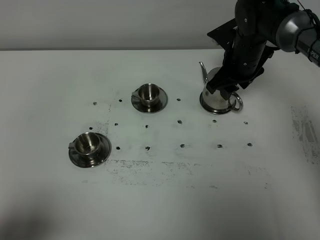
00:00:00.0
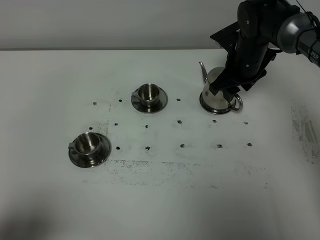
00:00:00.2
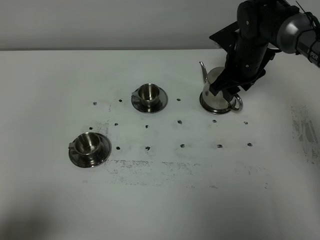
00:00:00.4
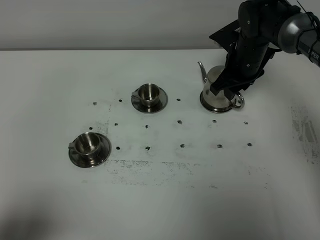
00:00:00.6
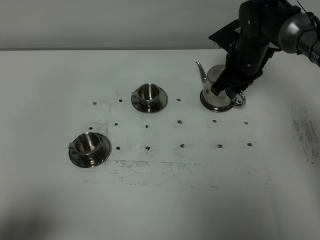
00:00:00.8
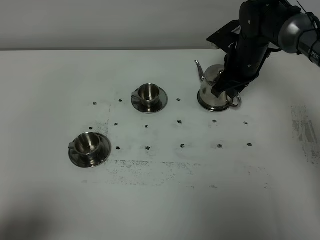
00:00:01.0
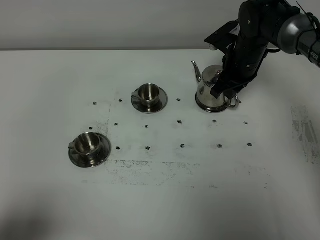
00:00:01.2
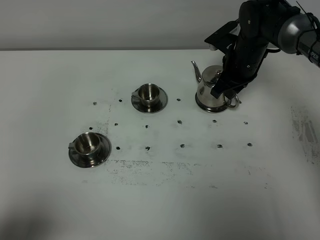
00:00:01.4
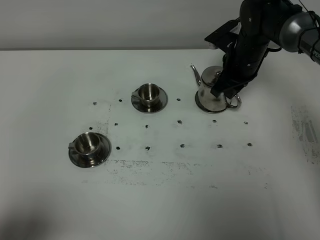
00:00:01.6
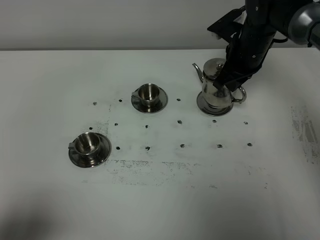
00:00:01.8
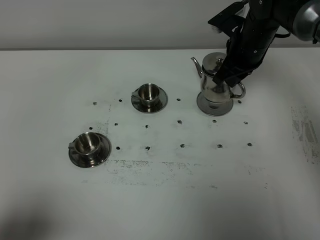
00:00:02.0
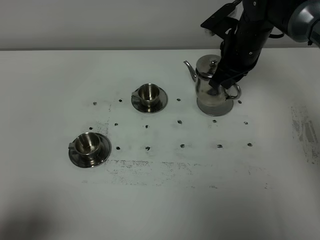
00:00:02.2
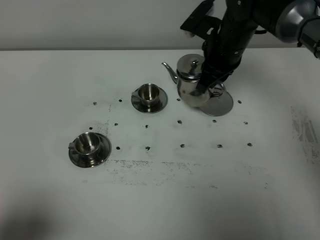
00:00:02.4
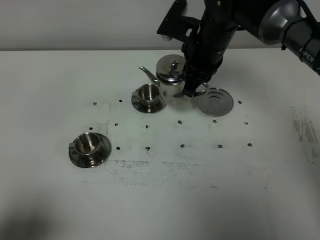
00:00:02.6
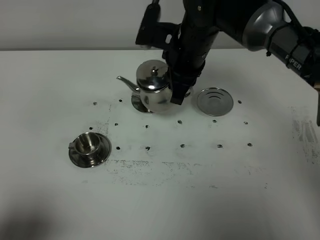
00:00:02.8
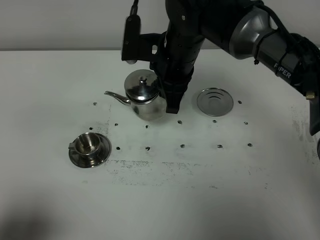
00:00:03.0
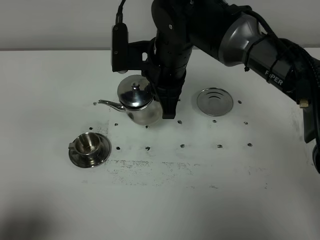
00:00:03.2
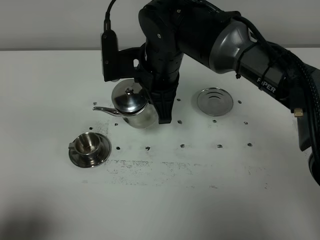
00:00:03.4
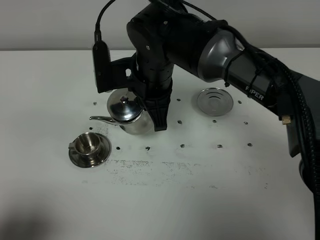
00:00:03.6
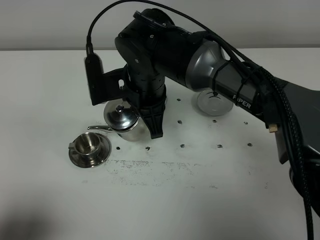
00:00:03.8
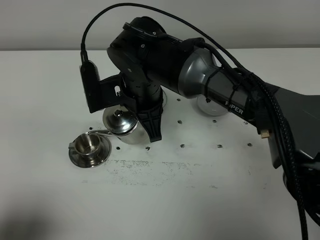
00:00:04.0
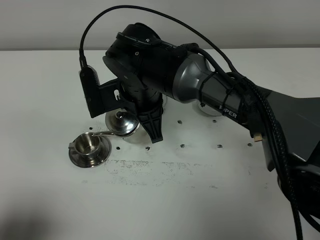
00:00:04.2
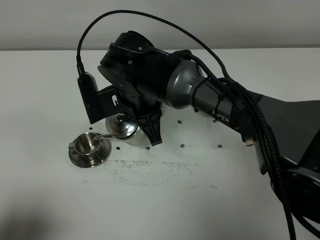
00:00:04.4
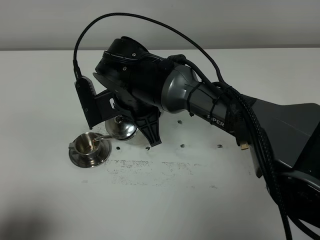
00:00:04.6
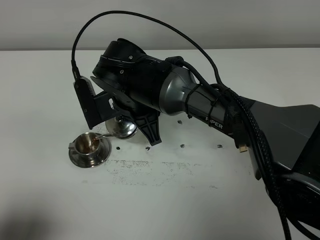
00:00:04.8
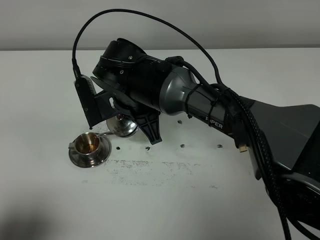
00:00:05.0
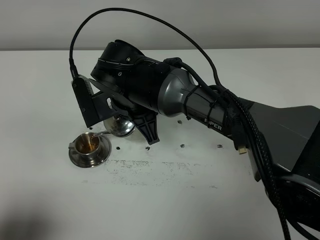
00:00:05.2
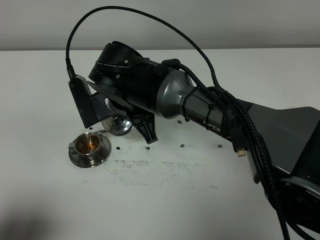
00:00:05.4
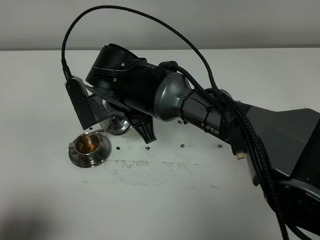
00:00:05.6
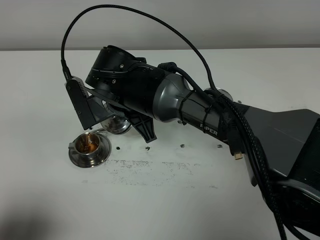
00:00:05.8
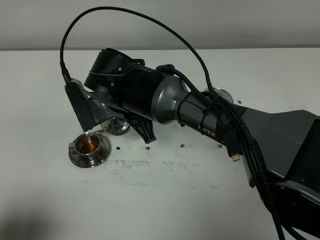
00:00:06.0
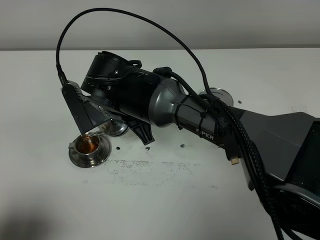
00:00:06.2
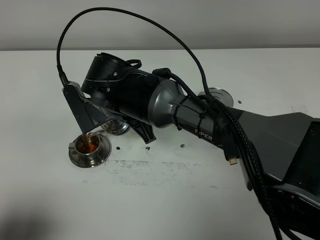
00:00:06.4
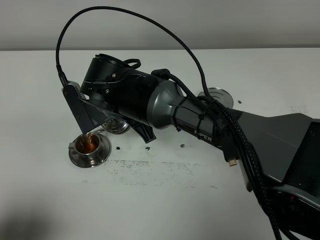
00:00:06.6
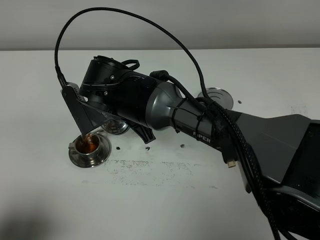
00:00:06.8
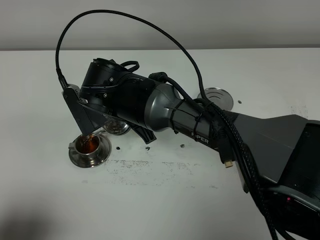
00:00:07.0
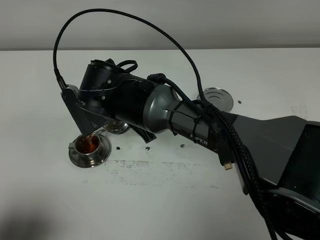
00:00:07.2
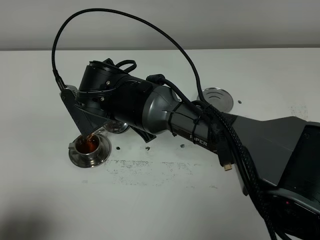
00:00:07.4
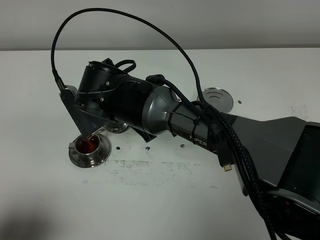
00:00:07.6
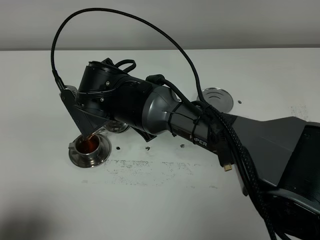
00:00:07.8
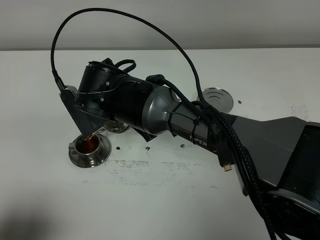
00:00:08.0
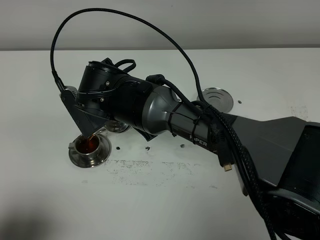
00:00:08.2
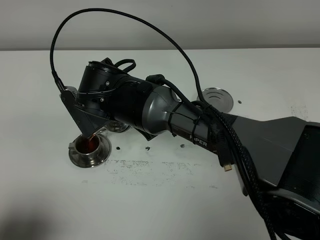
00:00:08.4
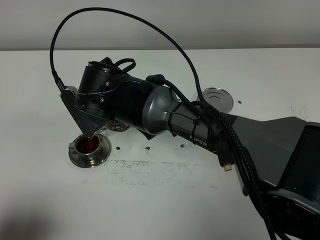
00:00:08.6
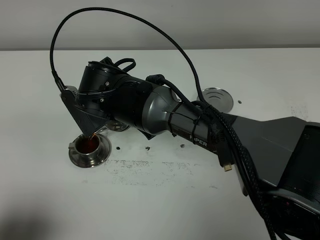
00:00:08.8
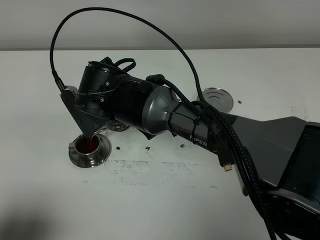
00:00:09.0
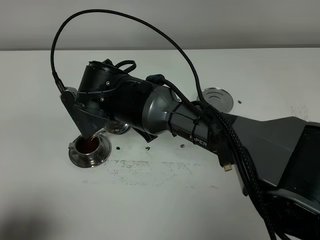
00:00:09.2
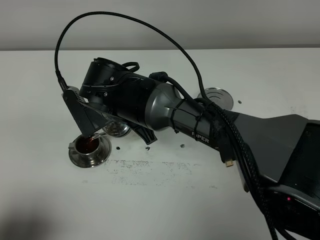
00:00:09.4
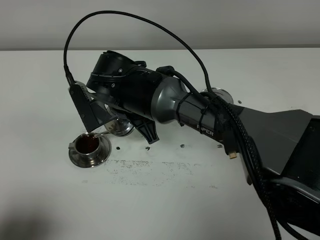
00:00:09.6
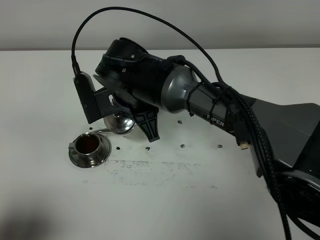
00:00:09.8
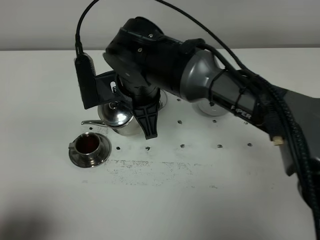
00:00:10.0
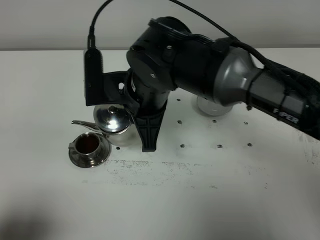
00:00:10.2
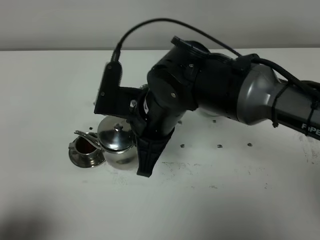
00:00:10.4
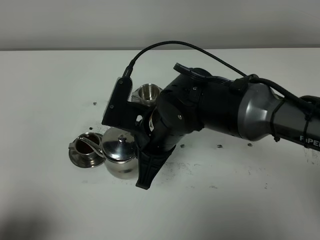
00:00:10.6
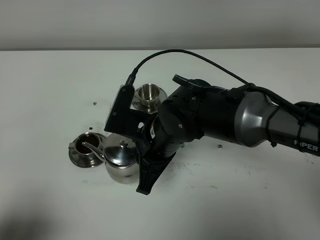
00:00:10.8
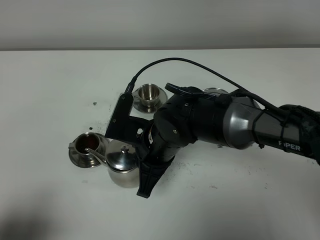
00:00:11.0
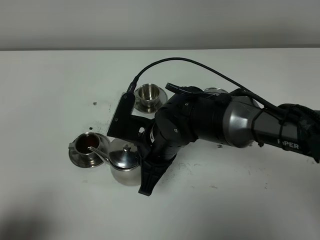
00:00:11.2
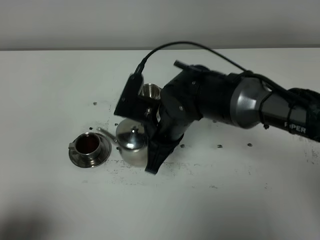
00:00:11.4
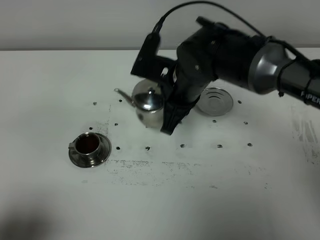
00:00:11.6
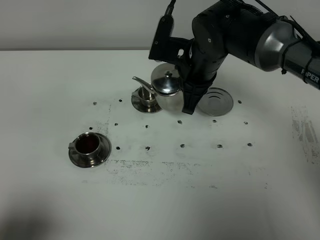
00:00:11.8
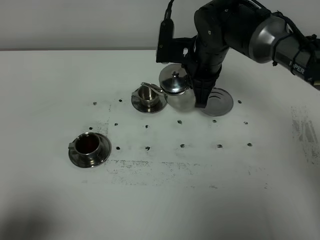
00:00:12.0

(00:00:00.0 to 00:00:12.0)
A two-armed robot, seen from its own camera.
Task of the whole recording: grasp the stainless steel teapot and pour the tea into the two stainless steel teacups one by one, put the stainless steel teapot back in its original place.
00:00:00.0 - 00:00:01.6: The right gripper closes up.
00:00:01.6 - 00:00:03.0: The right gripper moves to the left, upward and backward, about 20 cm.
00:00:03.0 - 00:00:04.4: The right gripper goes some 5 cm to the left.
00:00:06.0 - 00:00:07.6: The grippers stay close to where they were, moving slightly.
00:00:07.6 - 00:00:09.0: The two grippers keep their place.
00:00:09.0 - 00:00:10.4: The right gripper goes about 10 cm to the right and backward.
00:00:10.4 - 00:00:12.0: The right gripper heads forward and to the right, covering about 15 cm.

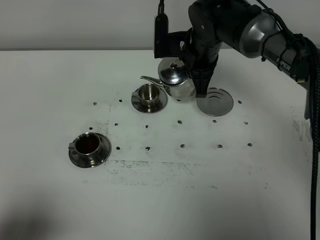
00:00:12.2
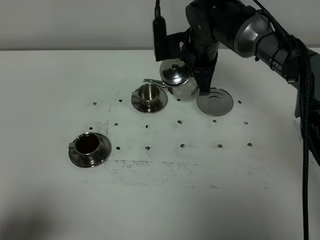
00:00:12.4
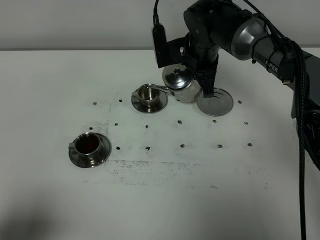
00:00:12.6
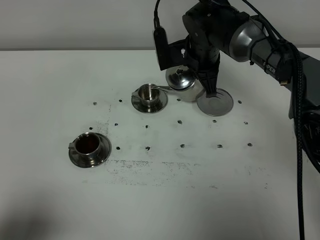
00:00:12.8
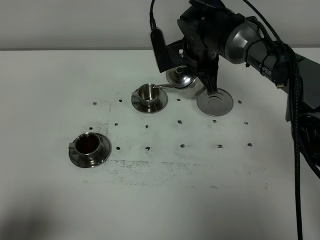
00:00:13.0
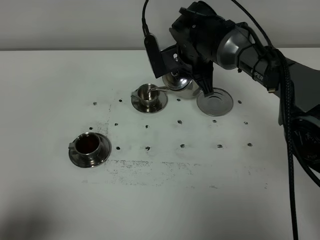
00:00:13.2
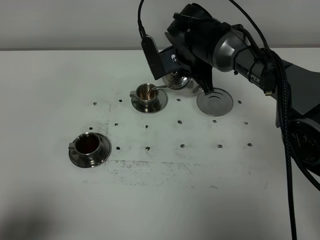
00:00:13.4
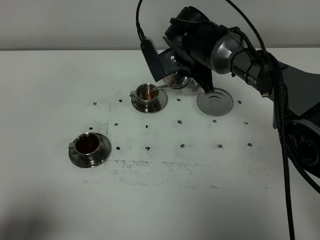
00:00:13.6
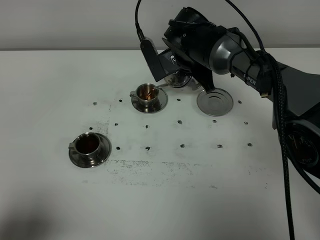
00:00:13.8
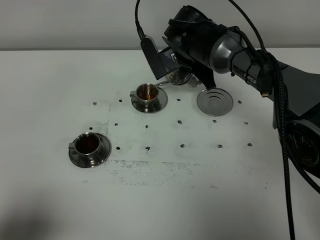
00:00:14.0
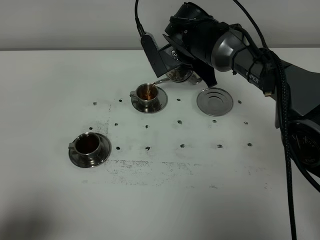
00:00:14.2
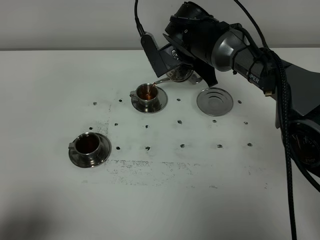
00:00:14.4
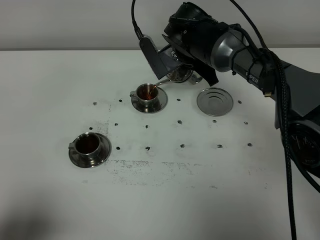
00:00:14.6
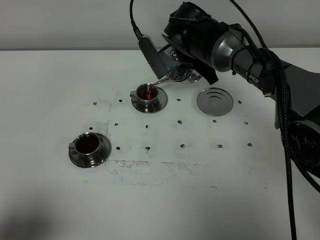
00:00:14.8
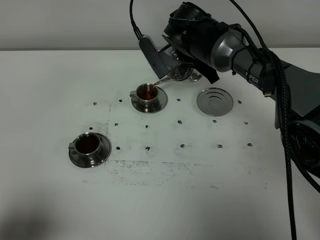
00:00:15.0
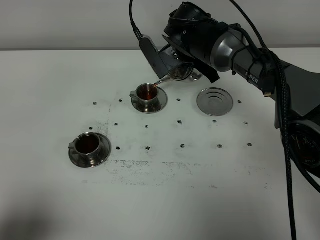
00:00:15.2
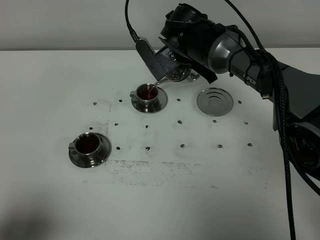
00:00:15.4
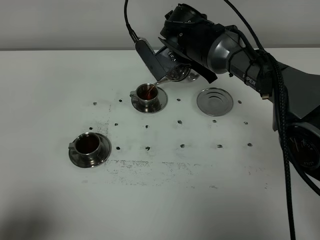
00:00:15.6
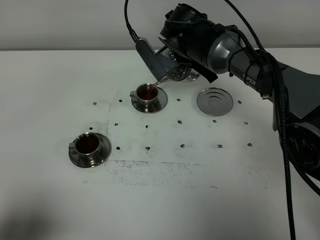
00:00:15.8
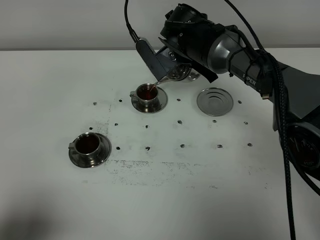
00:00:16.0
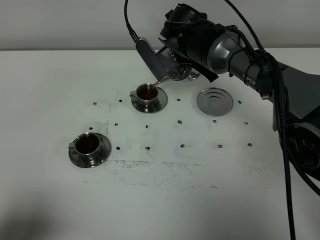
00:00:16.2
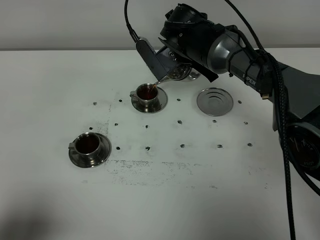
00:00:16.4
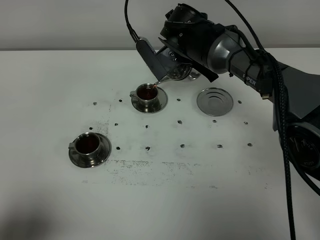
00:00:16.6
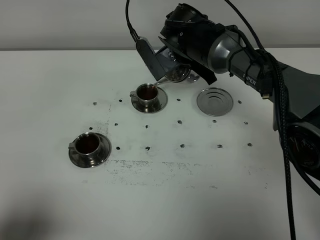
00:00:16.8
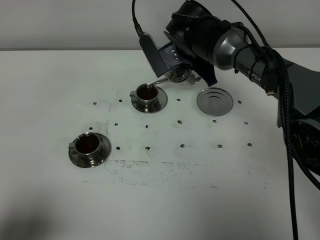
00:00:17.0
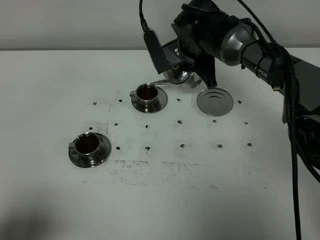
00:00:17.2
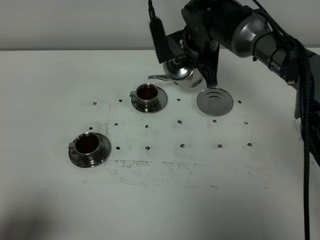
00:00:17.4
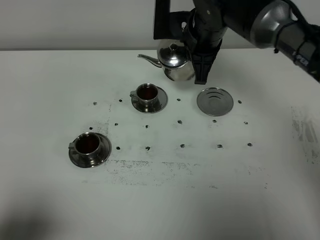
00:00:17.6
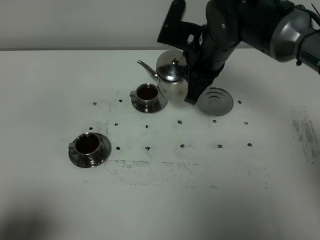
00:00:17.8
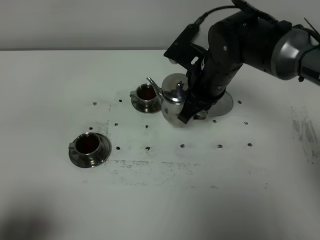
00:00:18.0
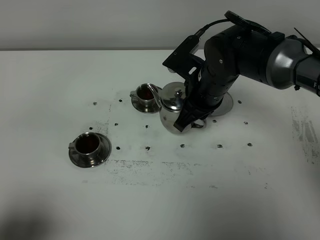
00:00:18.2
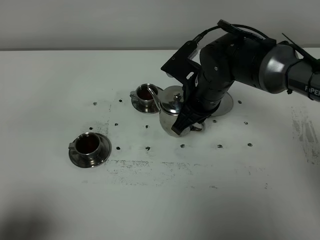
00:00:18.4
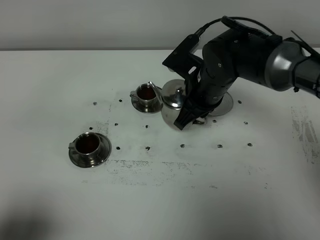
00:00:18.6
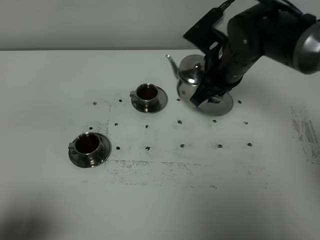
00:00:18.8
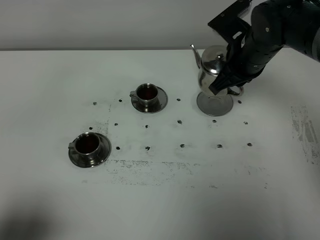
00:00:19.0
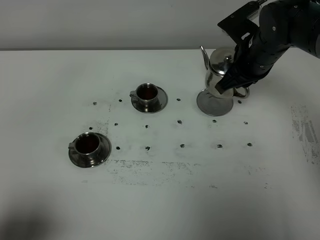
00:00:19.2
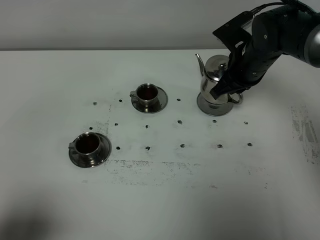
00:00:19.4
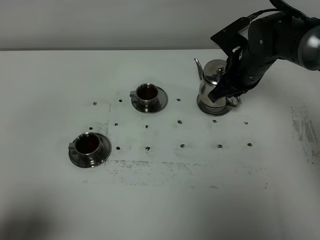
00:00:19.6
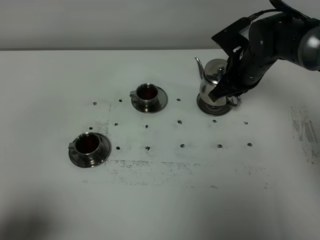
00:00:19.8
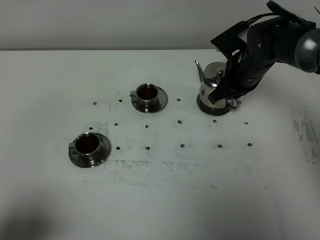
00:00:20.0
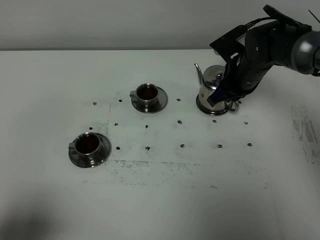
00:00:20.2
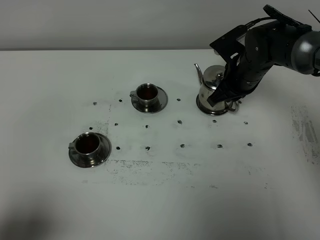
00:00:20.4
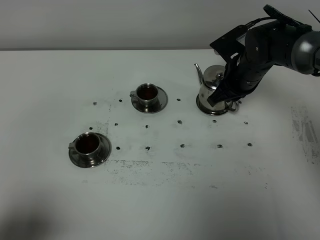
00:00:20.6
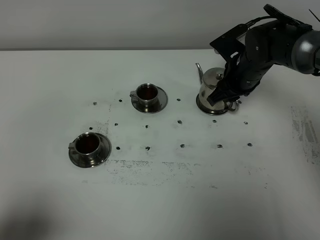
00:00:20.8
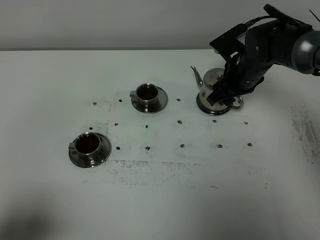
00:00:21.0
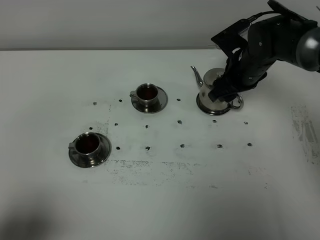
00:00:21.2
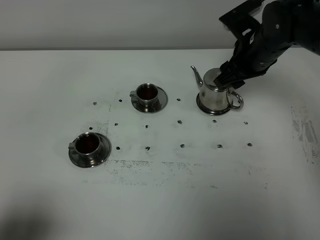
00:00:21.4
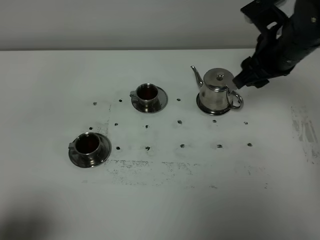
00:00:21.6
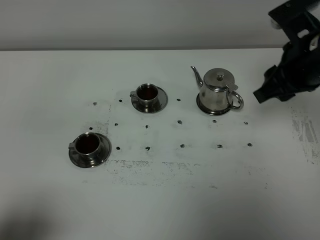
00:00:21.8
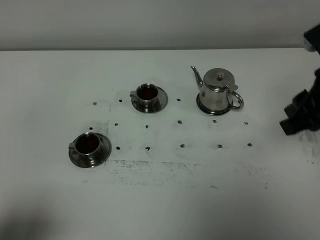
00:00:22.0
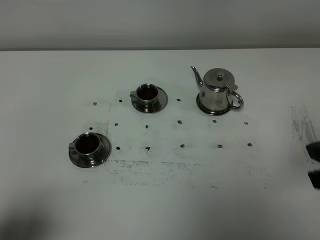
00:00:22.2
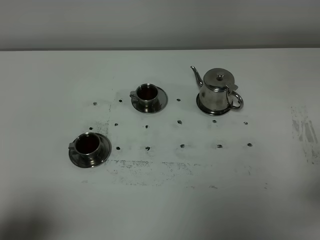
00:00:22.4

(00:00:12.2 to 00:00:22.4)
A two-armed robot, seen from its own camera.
Task of the whole recording: grasp the stainless steel teapot and pour the tea into the two stainless steel teacups one by one, put the stainless steel teapot back in its original place.
Step, 00:00:12.2 - 00:00:17.2: Pour tea into the teacup with the right gripper.
00:00:13.6 - 00:00:15.2: The grippers move only a little.
00:00:15.2 - 00:00:16.6: Neither gripper changes place.
00:00:16.6 - 00:00:18.0: The right gripper travels backward by roughly 10 cm.
00:00:18.0 - 00:00:19.4: The right gripper heads to the right, covering about 10 cm.
00:00:19.4 - 00:00:21.0: The right gripper opens up.
00:00:21.0 - 00:00:22.4: The right gripper travels backward by roughly 35 cm, and closes.
